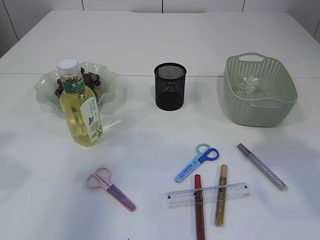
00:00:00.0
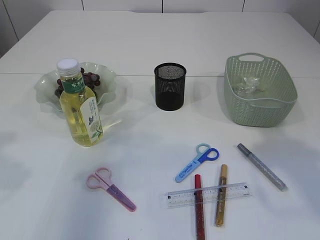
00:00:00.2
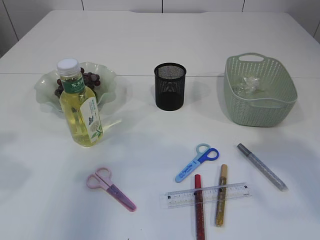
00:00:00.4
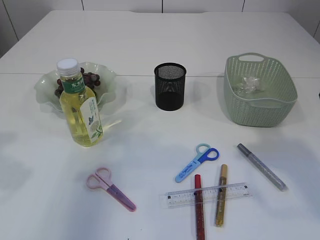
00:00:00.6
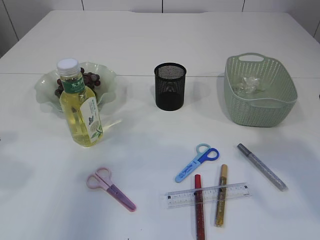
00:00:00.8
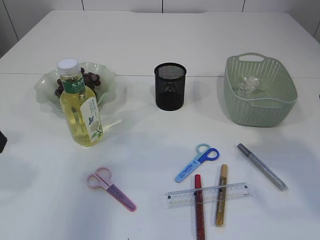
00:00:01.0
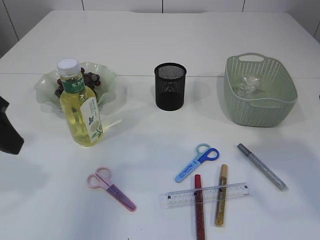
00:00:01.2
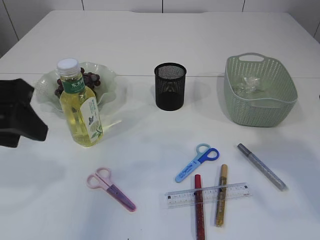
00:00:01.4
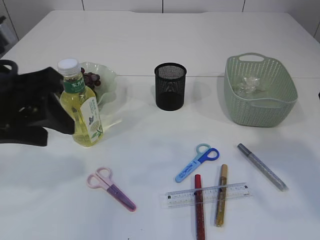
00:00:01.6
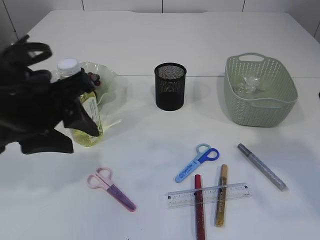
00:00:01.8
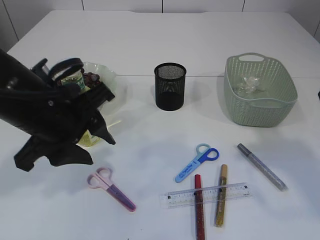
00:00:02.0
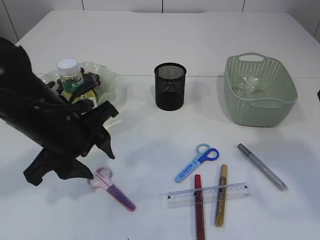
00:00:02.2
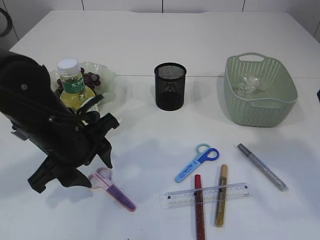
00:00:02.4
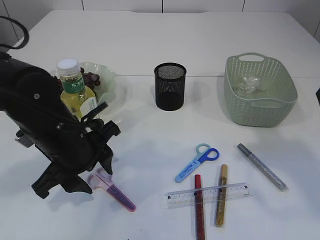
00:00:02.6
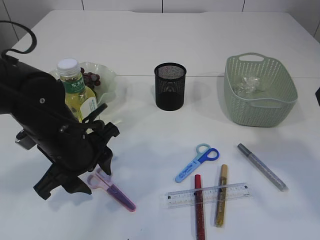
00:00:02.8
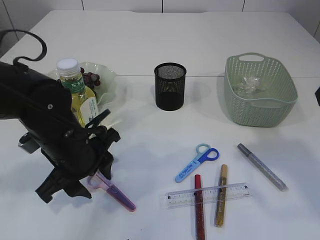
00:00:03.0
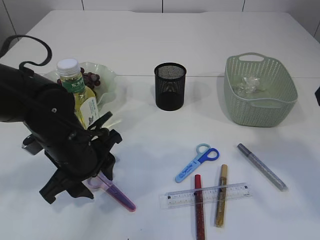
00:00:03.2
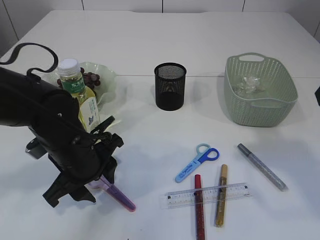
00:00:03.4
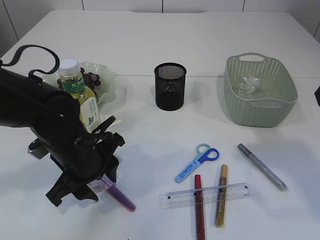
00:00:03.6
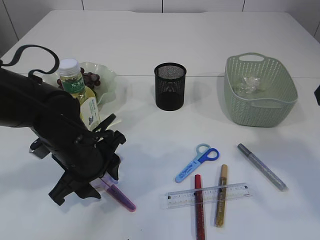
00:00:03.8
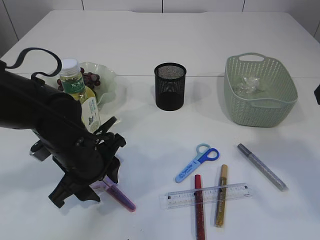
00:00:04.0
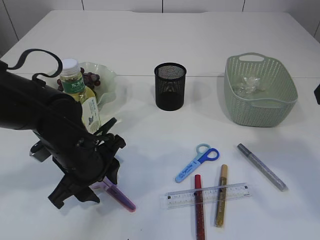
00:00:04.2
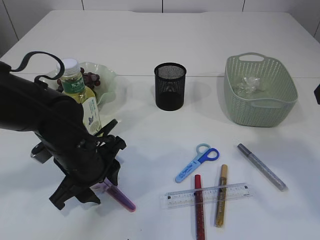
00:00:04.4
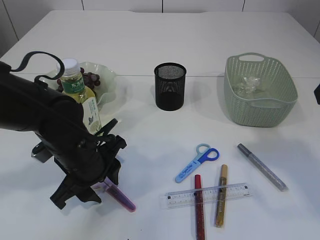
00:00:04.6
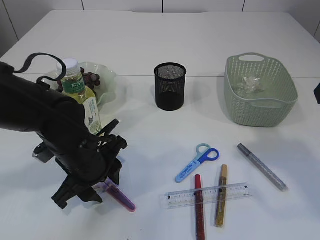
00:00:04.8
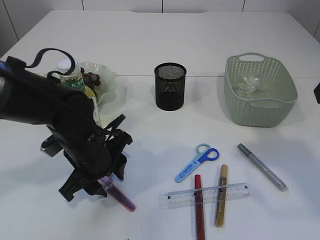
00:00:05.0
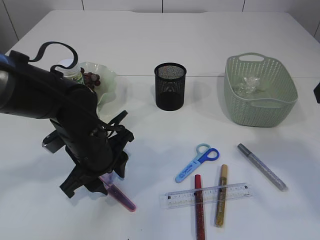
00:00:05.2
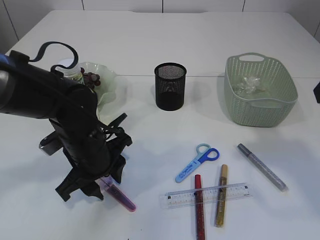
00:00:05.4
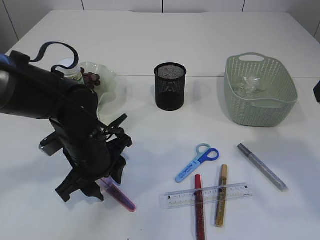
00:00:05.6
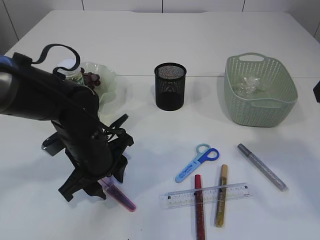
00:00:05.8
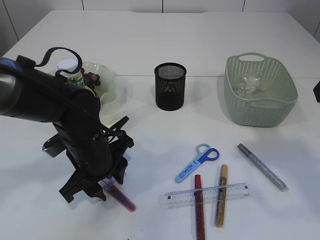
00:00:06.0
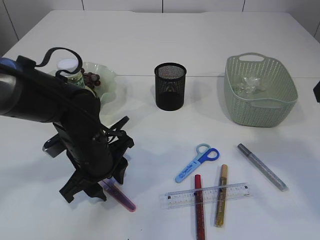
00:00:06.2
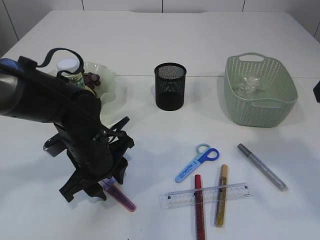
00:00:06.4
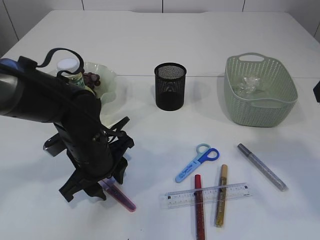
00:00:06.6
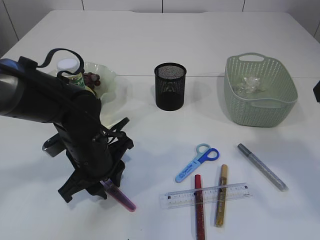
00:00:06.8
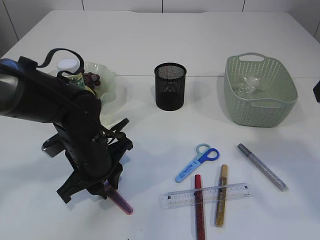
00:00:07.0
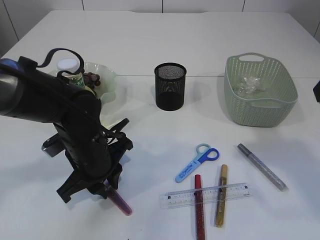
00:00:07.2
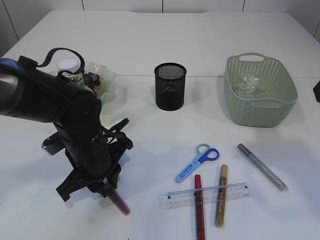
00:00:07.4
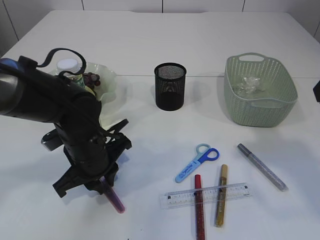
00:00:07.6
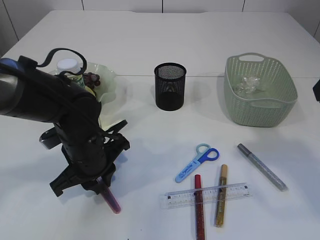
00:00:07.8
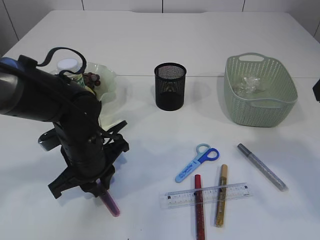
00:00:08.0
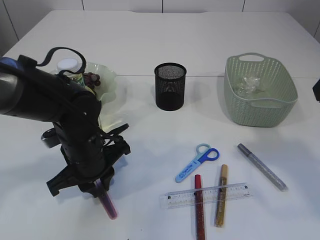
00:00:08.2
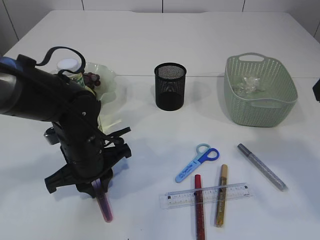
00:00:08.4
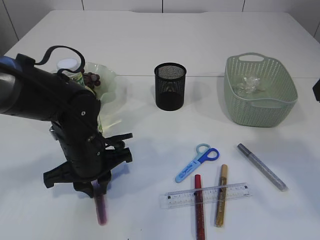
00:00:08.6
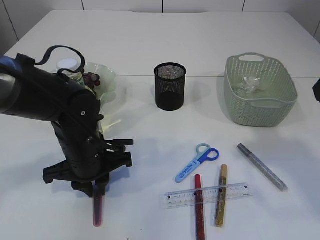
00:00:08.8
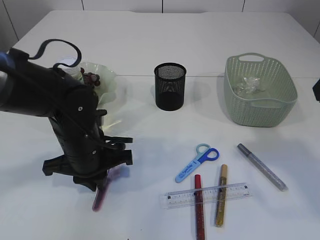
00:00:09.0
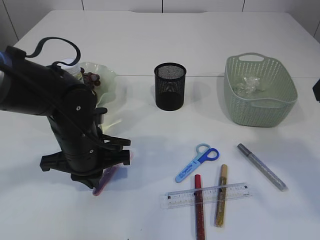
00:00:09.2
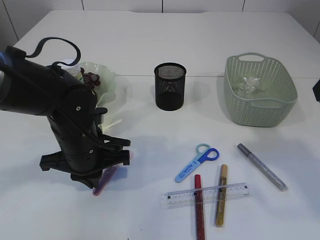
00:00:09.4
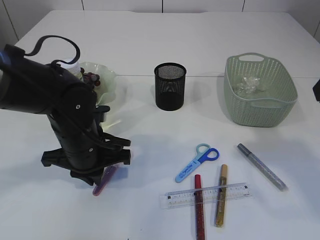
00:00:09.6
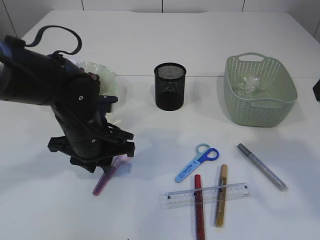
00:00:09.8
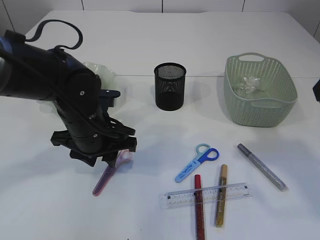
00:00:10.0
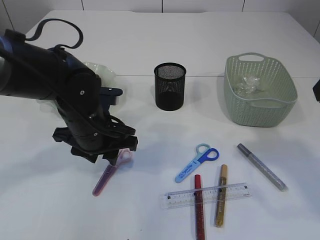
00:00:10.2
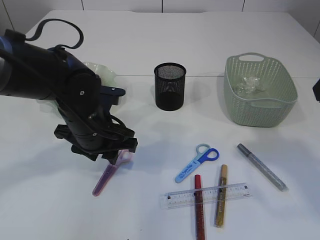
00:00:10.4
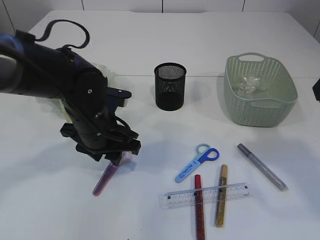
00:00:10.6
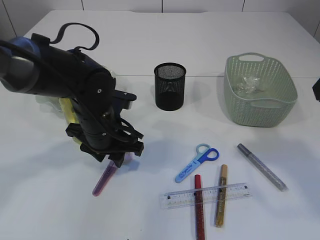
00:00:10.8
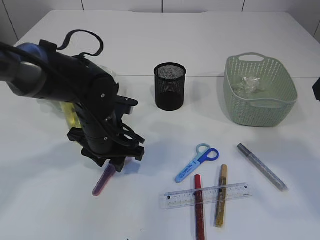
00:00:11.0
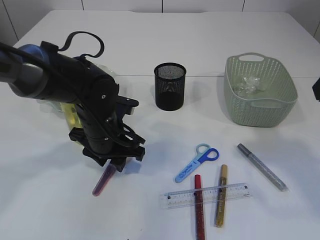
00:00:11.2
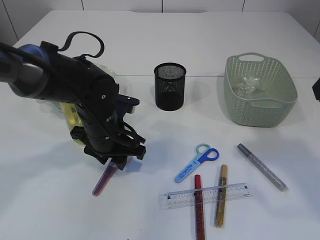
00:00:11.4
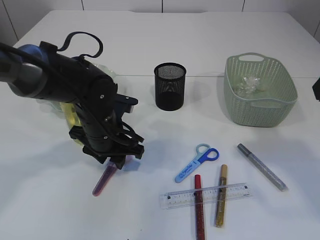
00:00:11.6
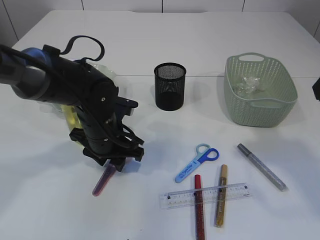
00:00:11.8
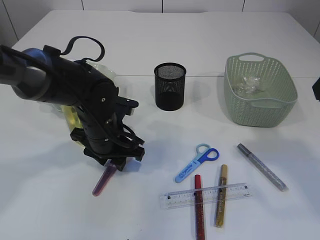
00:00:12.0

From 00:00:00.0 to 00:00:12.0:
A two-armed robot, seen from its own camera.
From 00:00:00.0 to 00:00:01.6: The left gripper moves to the right, approximately 10 cm.
From 00:00:01.6 to 00:00:03.0: The left gripper shifts some 15 cm downward and to the right.
From 00:00:03.0 to 00:00:06.0: The grippers move only a little.
From 00:00:06.0 to 00:00:07.6: The left gripper closes up.
From 00:00:09.0 to 00:00:10.4: The left gripper opens.
From 00:00:10.4 to 00:00:12.0: The grippers stay close to where they were, moving slightly.

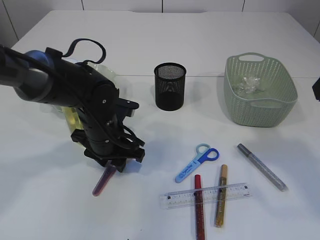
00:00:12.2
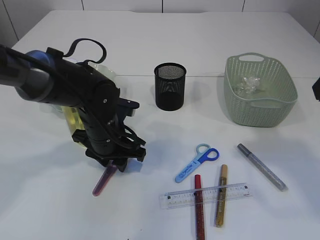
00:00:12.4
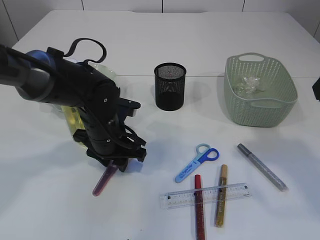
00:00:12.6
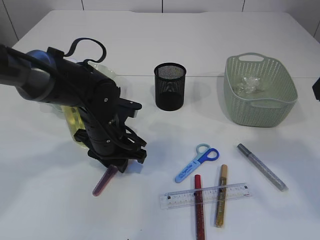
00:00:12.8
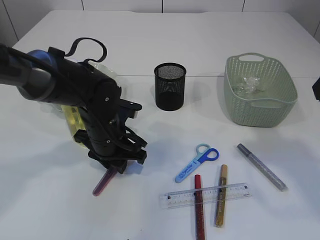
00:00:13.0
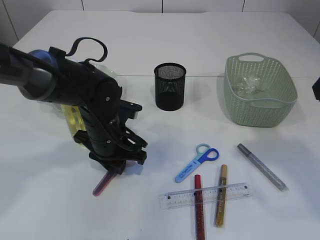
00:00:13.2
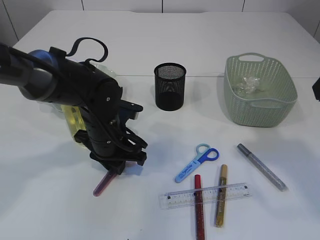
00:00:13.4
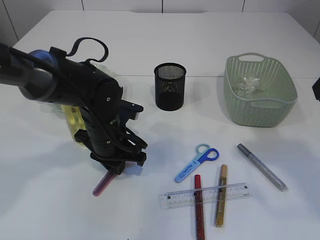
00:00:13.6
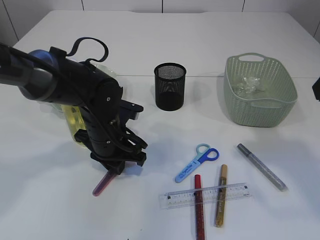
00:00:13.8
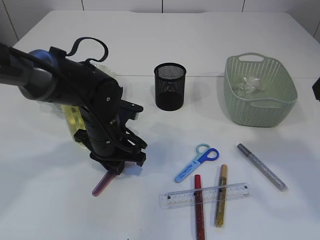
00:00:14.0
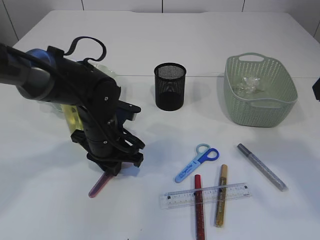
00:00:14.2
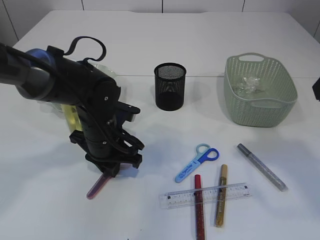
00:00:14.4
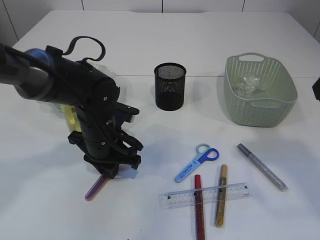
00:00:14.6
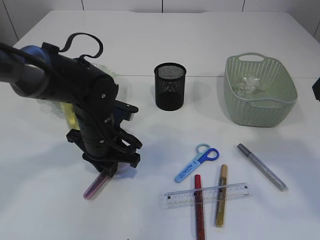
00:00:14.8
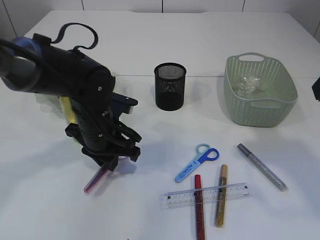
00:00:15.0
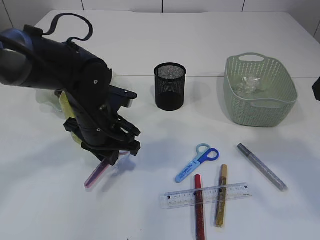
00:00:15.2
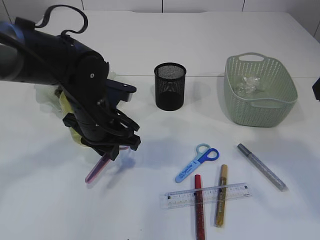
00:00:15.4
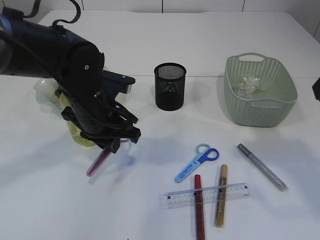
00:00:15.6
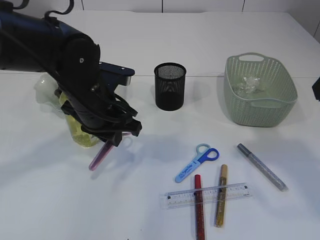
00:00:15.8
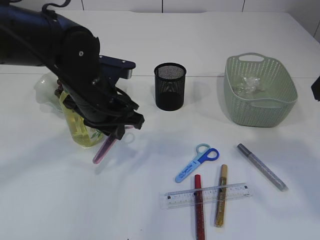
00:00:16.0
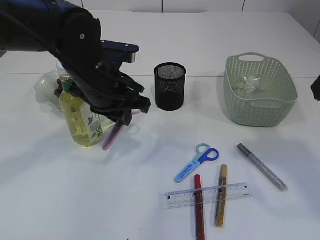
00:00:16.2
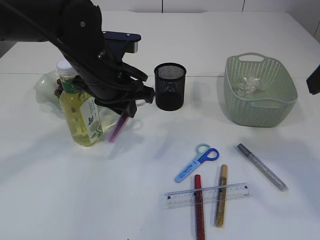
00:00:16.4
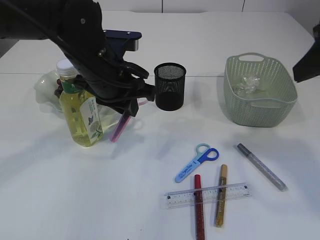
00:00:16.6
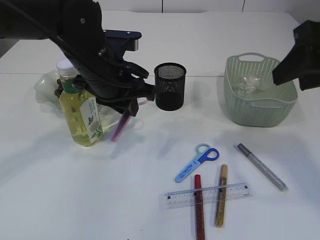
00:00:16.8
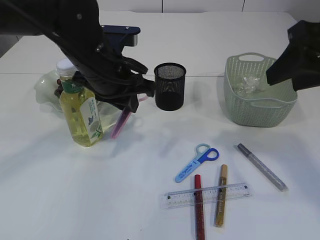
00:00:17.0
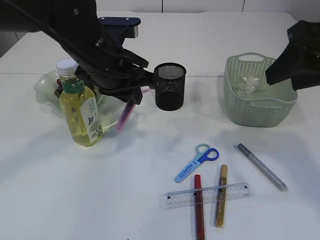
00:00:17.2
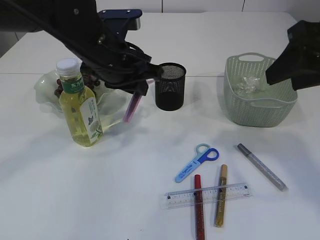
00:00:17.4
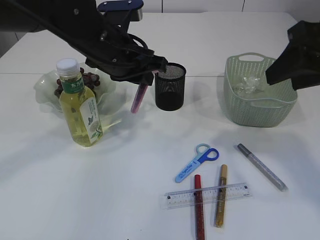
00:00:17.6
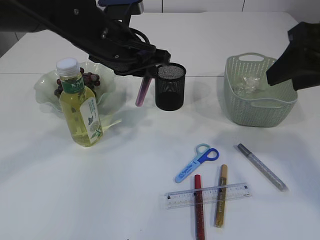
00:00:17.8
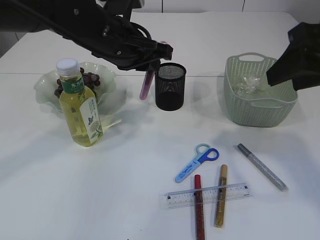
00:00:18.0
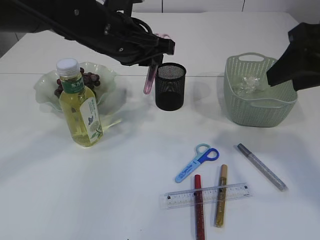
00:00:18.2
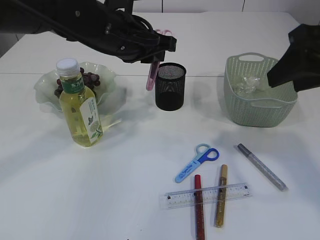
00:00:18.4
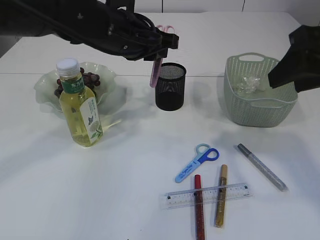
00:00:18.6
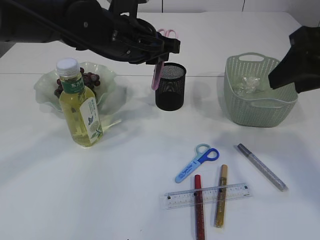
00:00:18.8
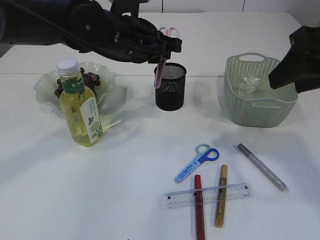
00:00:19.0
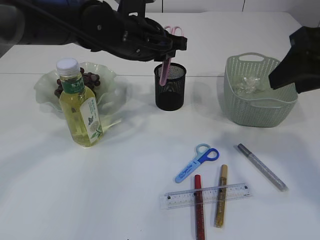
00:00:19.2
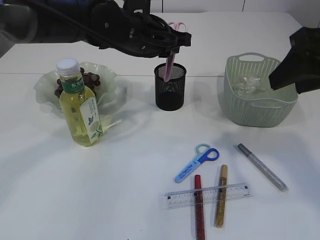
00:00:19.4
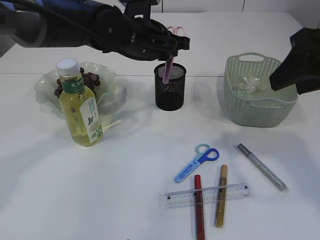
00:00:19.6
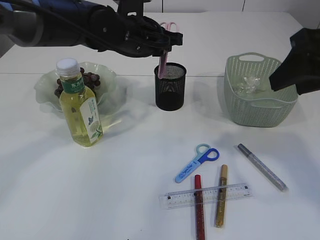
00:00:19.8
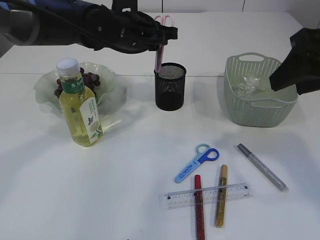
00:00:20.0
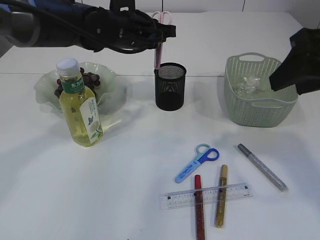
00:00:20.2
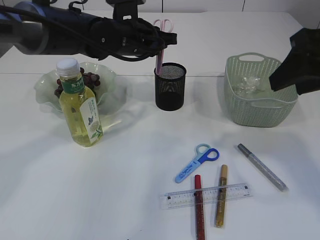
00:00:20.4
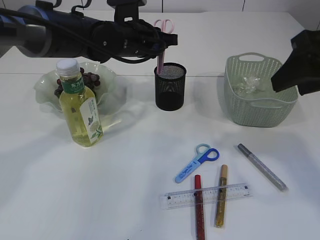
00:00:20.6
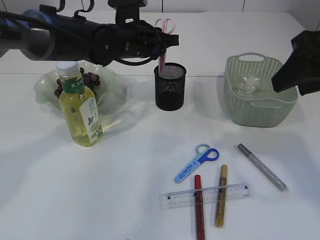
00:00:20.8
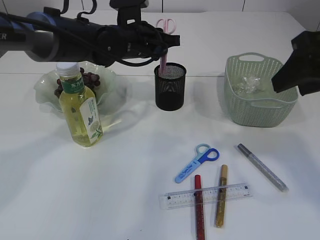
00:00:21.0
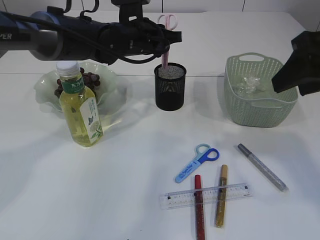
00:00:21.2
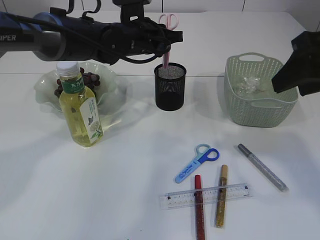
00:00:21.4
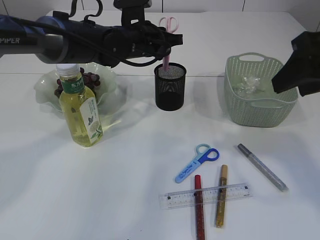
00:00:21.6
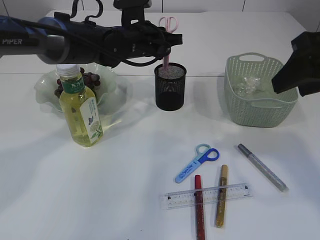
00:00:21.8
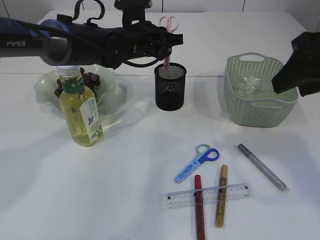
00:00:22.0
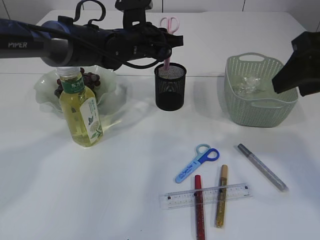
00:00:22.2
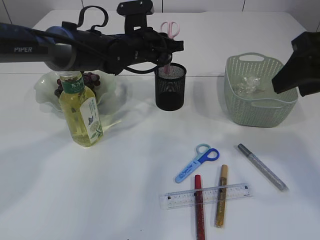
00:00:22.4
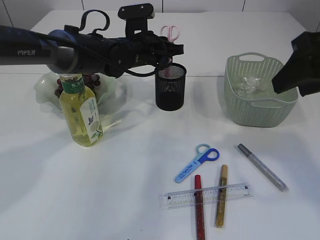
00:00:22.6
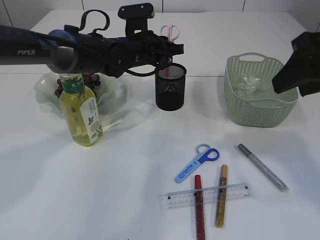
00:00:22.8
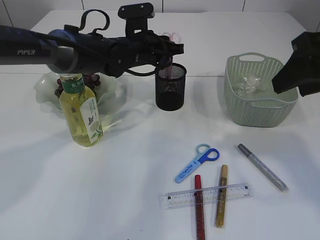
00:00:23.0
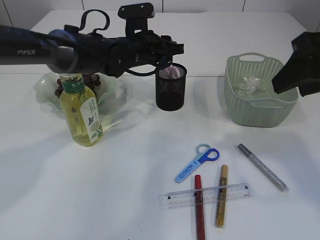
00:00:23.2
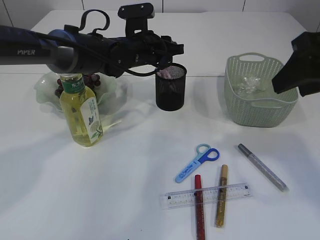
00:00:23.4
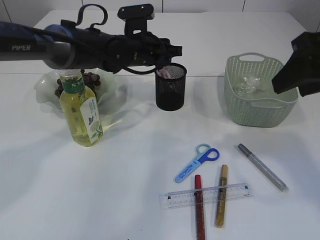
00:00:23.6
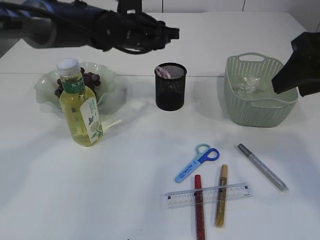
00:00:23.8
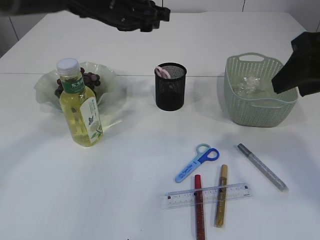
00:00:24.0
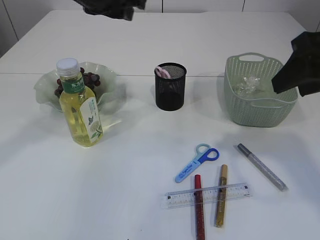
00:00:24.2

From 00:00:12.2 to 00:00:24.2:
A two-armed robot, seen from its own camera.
Step, from 00:00:12.2 to 00:00:15.4: pick up the pink scissors.
Step, from 00:00:15.6 to 00:00:23.4: Place the pink scissors into the pen holder.
From 00:00:12.2 to 00:00:13.8: The left gripper closes up.
From 00:00:13.8 to 00:00:15.2: The grippers stay close to where they were, moving slightly.
From 00:00:15.2 to 00:00:16.6: The left gripper goes roughly 10 cm upward.
From 00:00:18.2 to 00:00:19.8: The left gripper moves forward, some 5 cm.
From 00:00:19.8 to 00:00:21.2: The grippers stay close to where they were, moving slightly.
From 00:00:21.2 to 00:00:22.6: There are only small adjustments of the grippers.
From 00:00:22.6 to 00:00:24.2: The left gripper moves upward and backward, some 15 cm.
